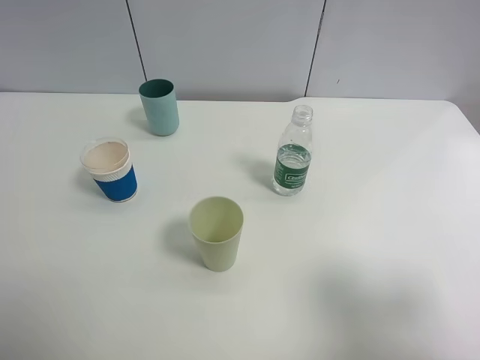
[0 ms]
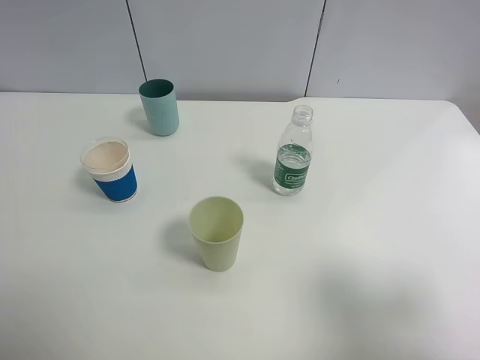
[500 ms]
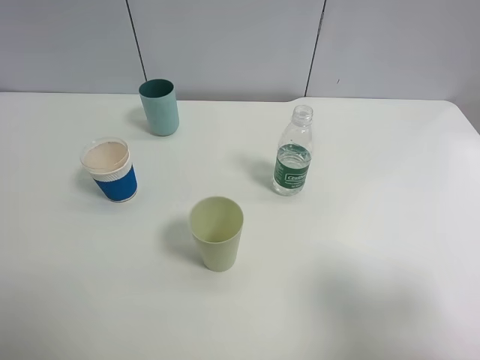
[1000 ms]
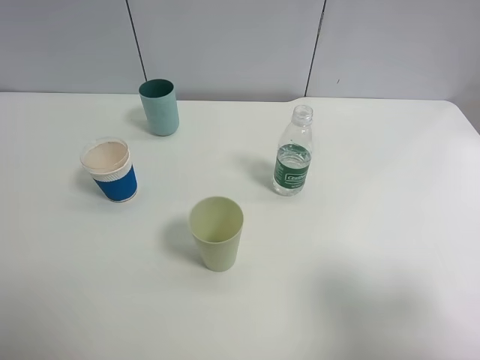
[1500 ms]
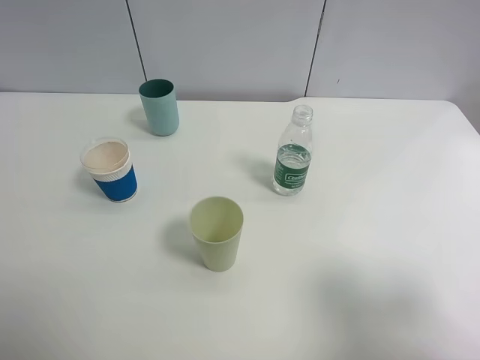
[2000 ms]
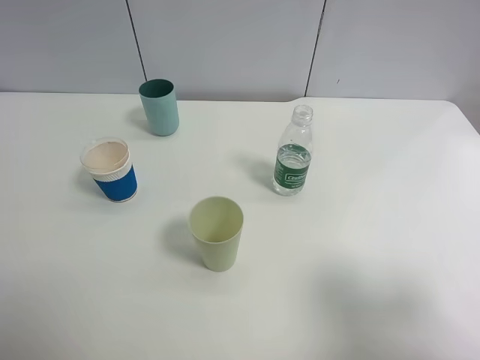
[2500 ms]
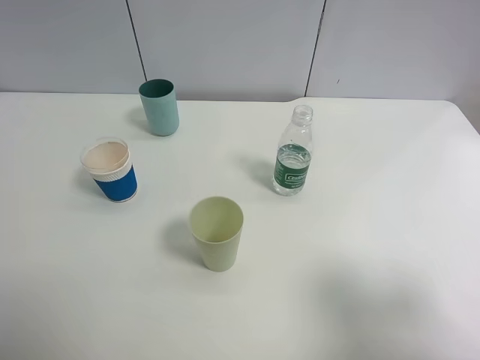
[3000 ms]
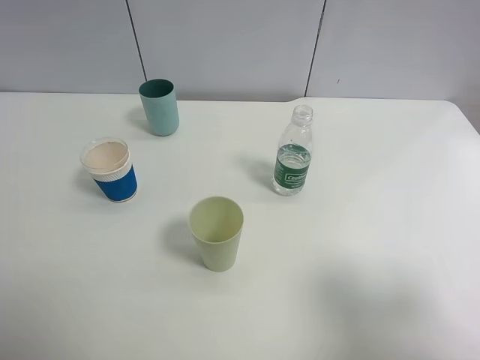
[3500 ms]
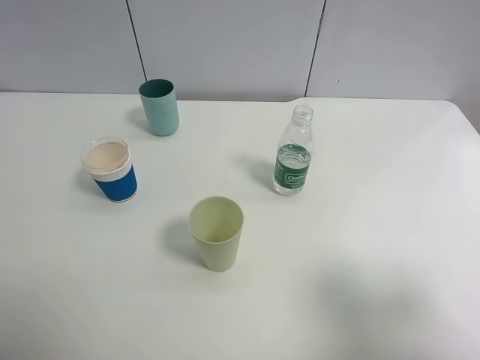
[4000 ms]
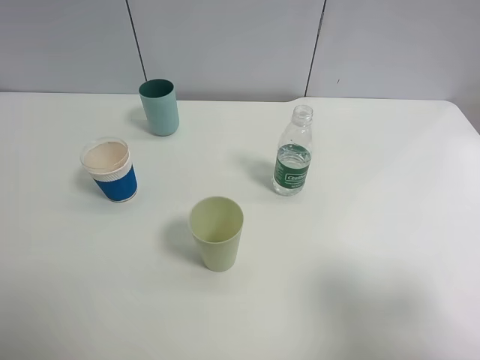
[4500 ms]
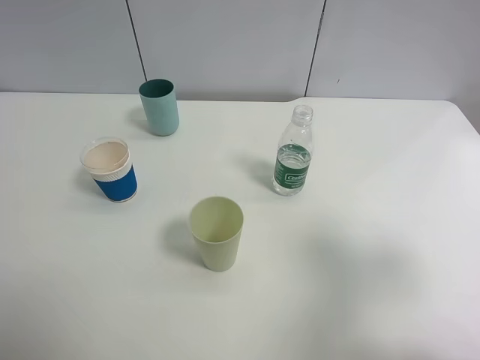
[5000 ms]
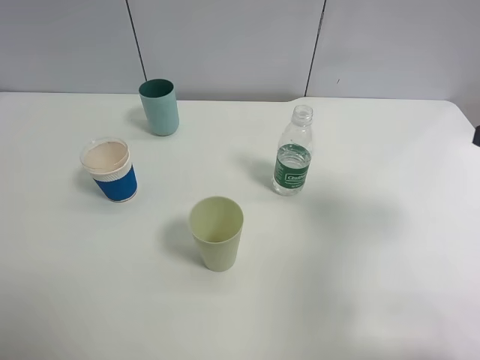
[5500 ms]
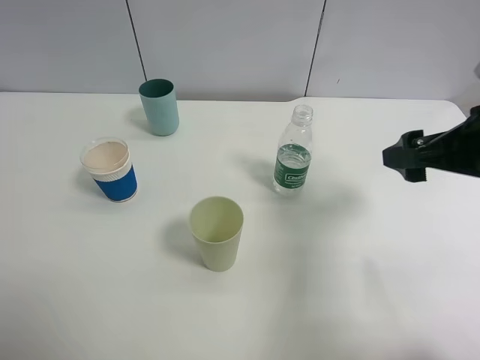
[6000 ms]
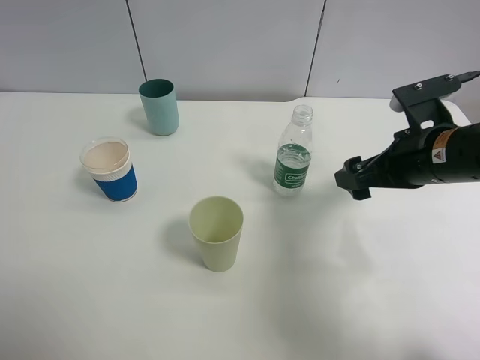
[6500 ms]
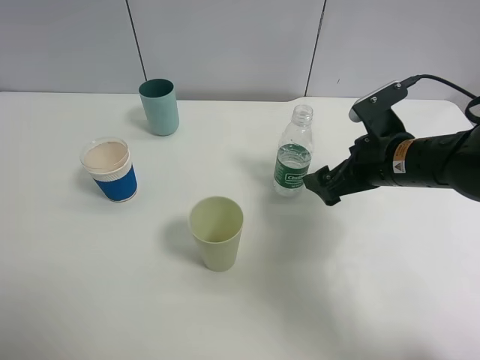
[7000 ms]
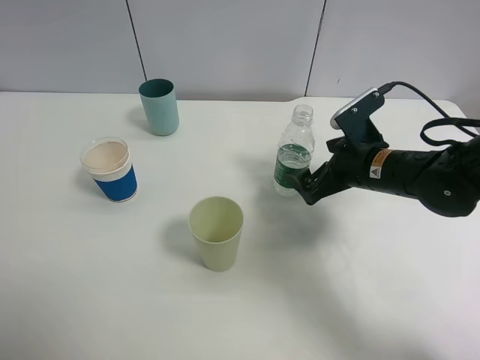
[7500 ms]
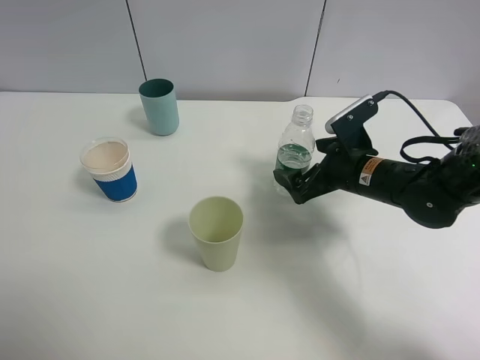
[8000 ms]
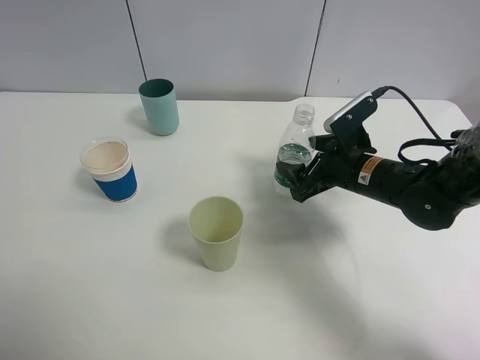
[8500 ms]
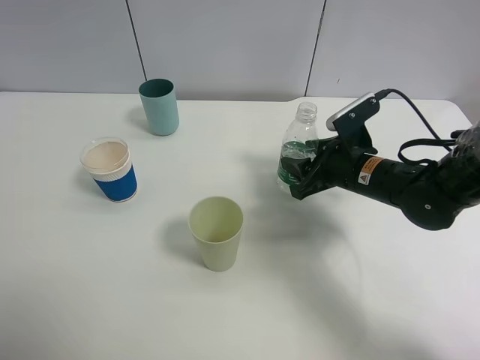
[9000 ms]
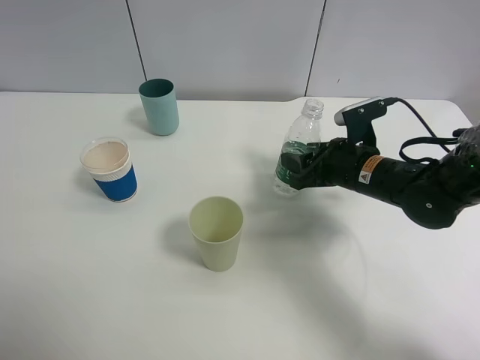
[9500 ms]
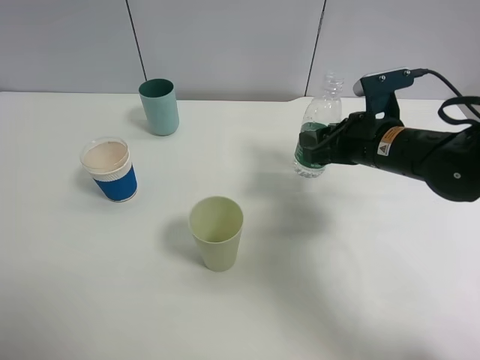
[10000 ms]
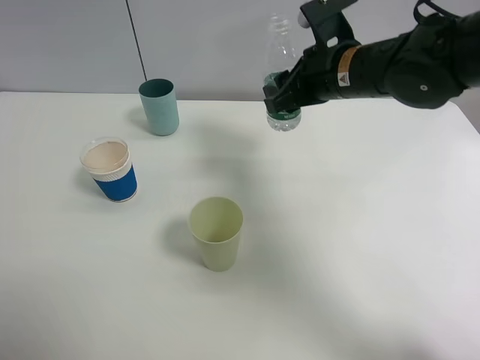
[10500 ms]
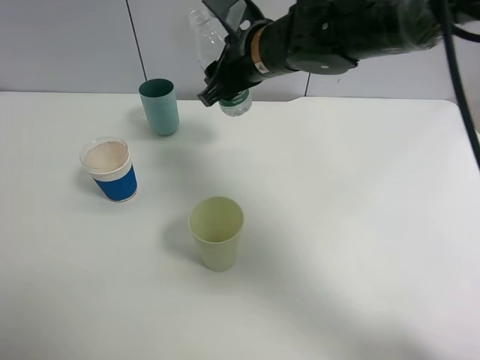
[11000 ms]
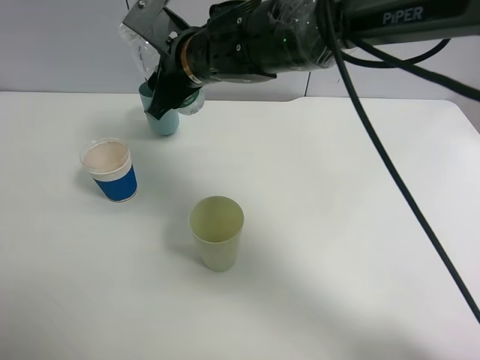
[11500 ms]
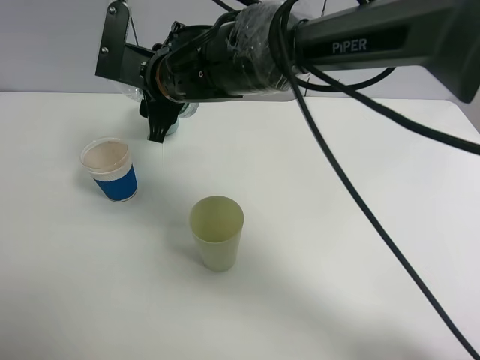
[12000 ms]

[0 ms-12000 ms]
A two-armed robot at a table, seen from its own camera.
Task of the whole recording: use a clamp to hold the bottle of the drink, pour the beverage into a random cup, then clamp the cup containing the drink and pour the drink into another random cup.
Step, 0 ms to 10000 ms: Pick up the water bottle with right gripper.
0 ms to 4000 ms: The two grippers keep their place.
4000 ms to 6000 ms: The right gripper goes about 20 cm forward.
6000 ms to 8000 ms: The right gripper moves downward, forward and to the left, roughly 20 cm.
8000 ms to 10000 ms: The right gripper travels upward by some 5 cm, and closes its fingers.
10000 ms to 12000 ms: The right gripper is displaced to the left by about 25 cm.

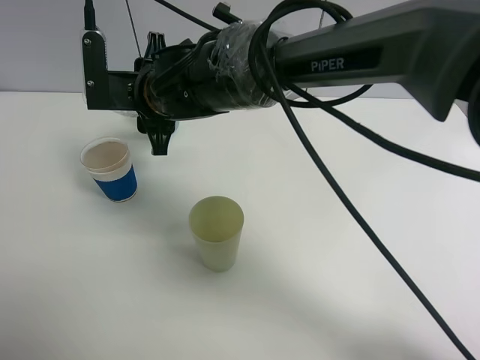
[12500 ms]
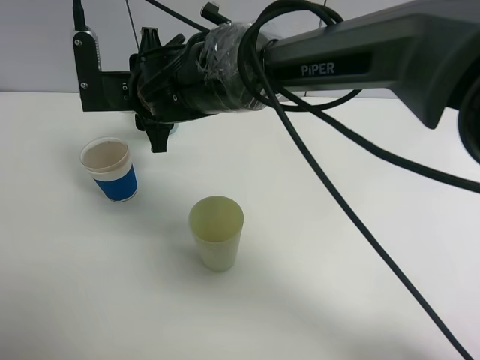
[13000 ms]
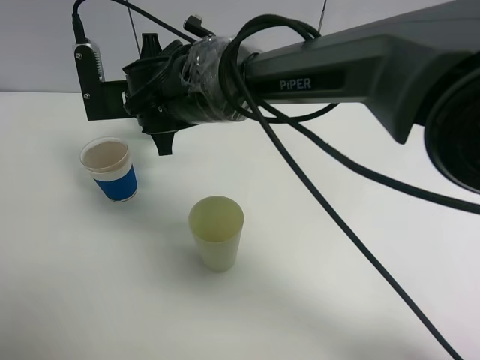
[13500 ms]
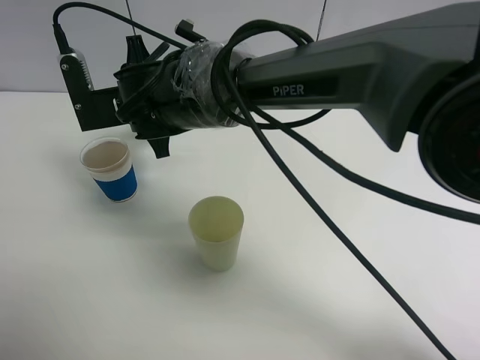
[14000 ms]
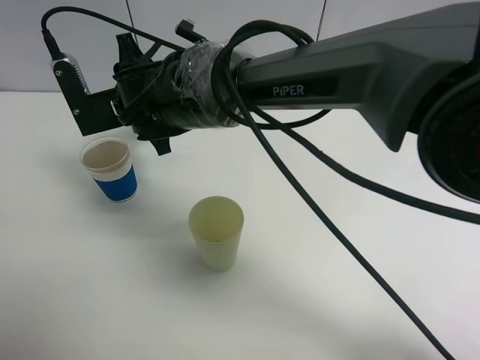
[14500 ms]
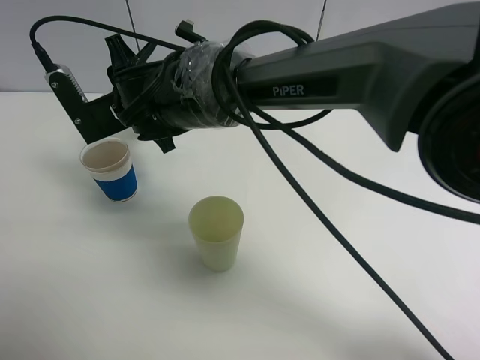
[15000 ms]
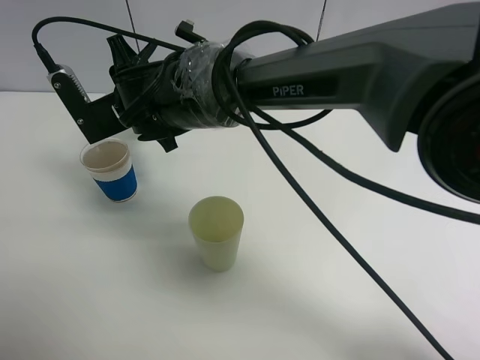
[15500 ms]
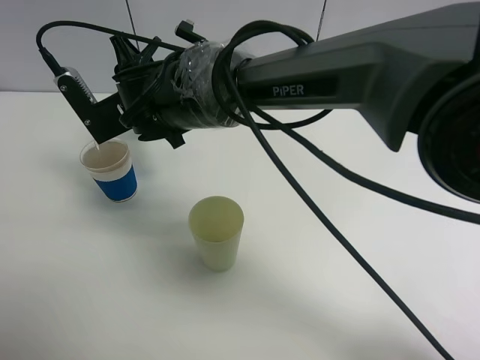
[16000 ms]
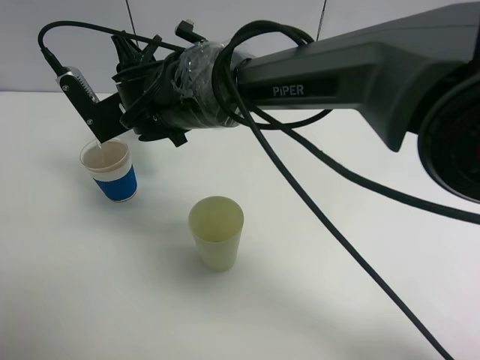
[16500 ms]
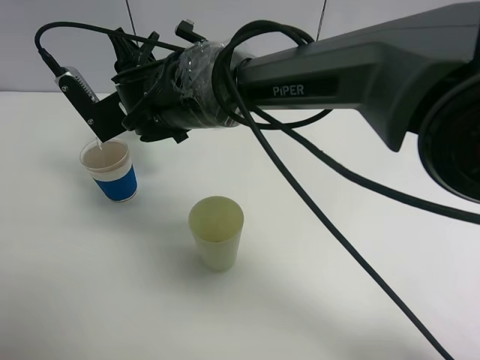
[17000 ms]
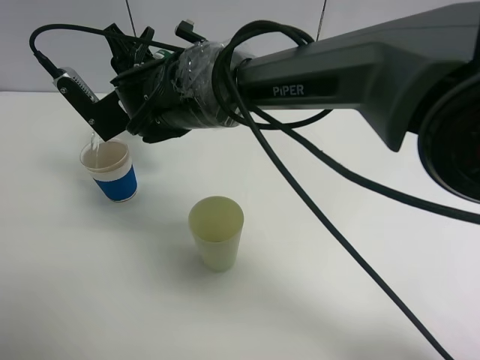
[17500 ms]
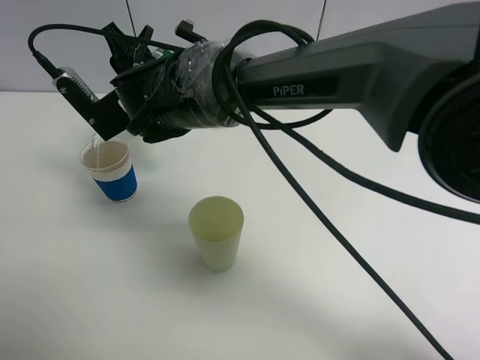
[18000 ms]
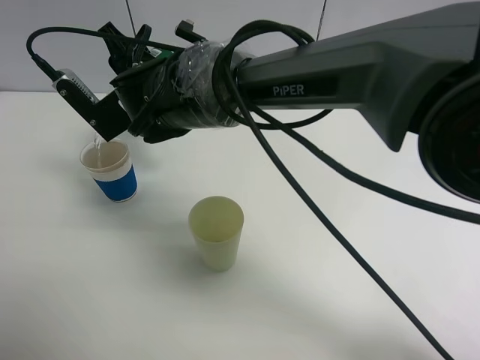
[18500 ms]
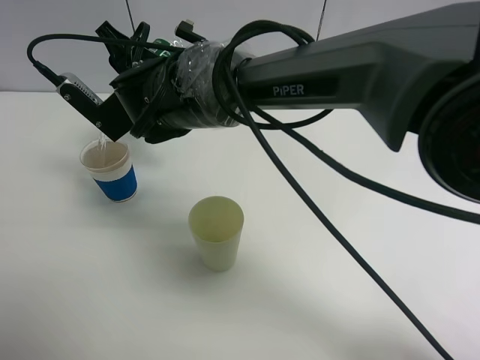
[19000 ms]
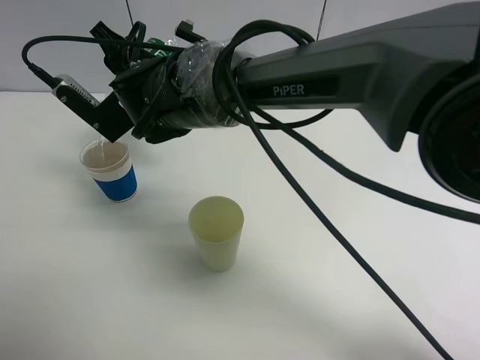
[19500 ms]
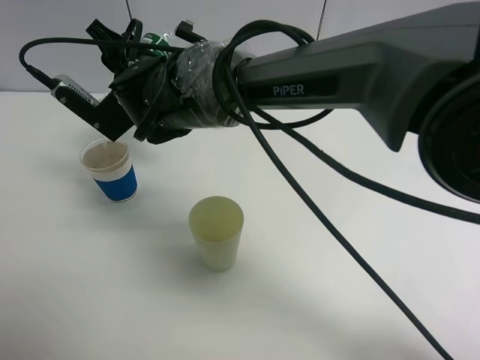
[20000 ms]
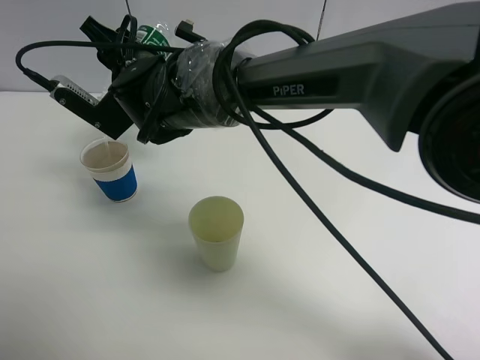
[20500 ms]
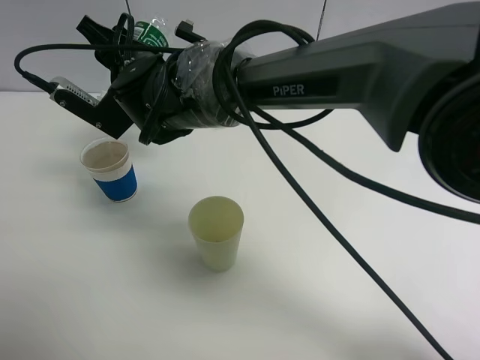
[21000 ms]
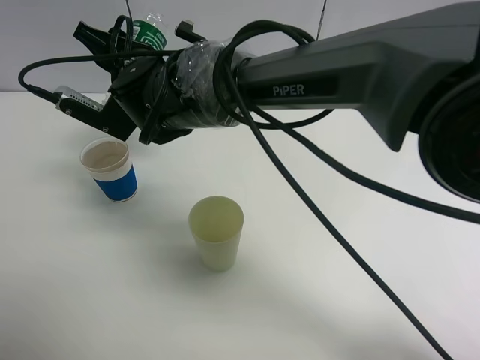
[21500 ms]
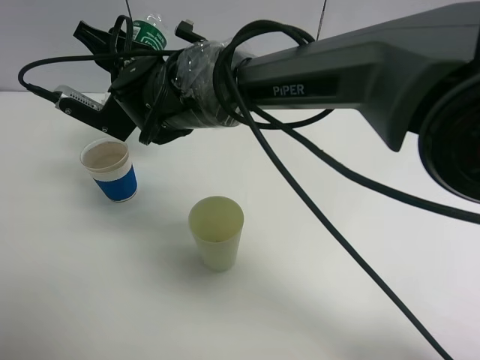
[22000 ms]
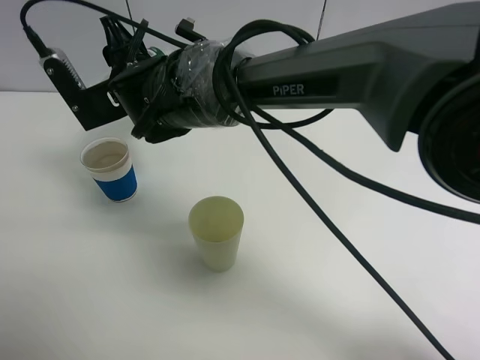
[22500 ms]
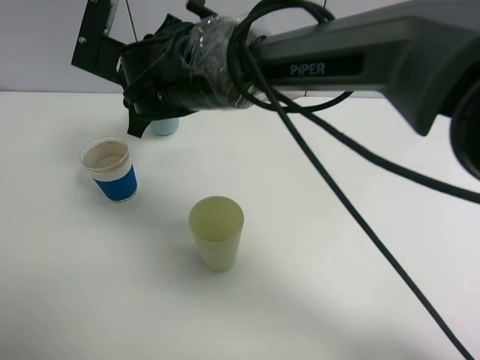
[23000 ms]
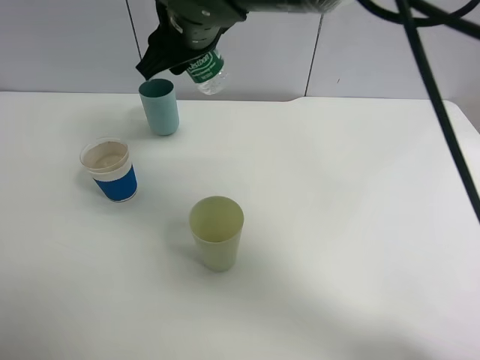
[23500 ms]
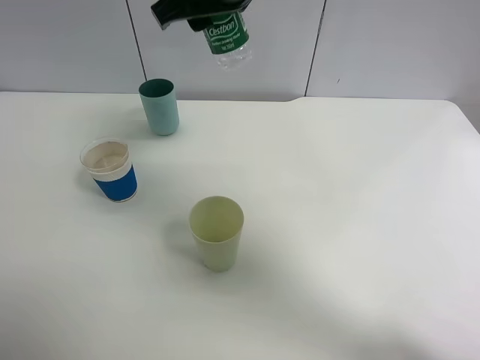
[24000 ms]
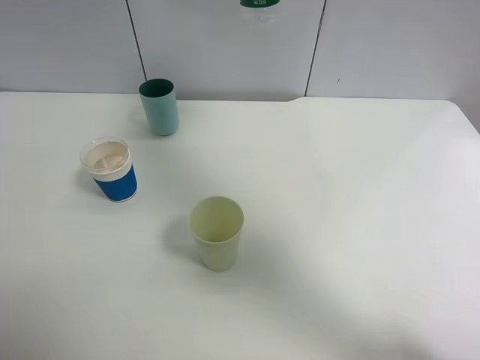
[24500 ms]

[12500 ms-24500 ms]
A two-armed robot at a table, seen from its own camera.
Task of the whole recording: use a clamp to hold the bottle of the drink, pour the beverage into a random cup, then clamp the cup containing the drink and pour the drink into another random cup.
Step, 12500 ms to 22500 ms: Pour water into the paper cup with right gripper.
14500 ms to 16500 ms: The grippers move only a little.
16500 ms to 18500 ms: The grippers make only small movements.
18500 ms to 20500 ms: The grippers make only small movements.
22500 ms to 24500 ms: The right gripper is displaced to the right and upward by about 25 cm.

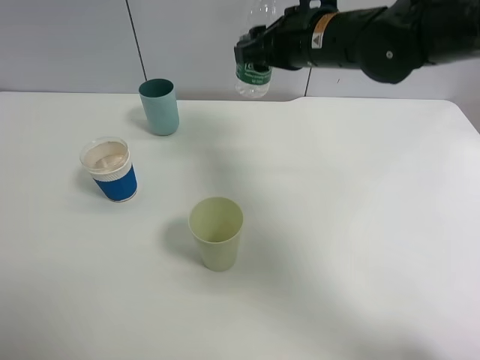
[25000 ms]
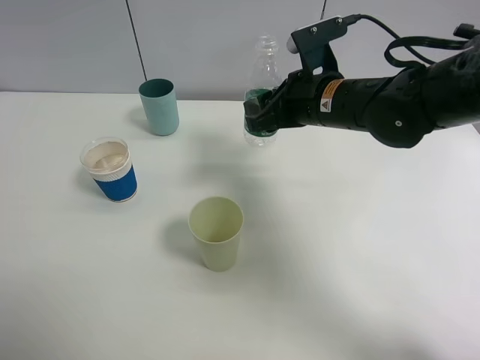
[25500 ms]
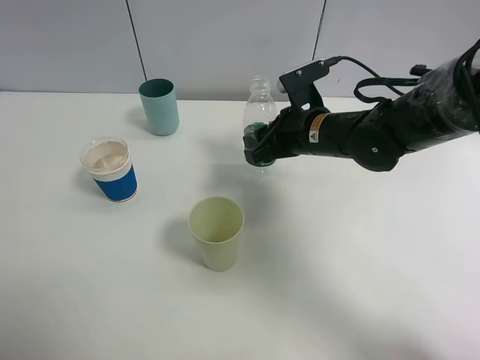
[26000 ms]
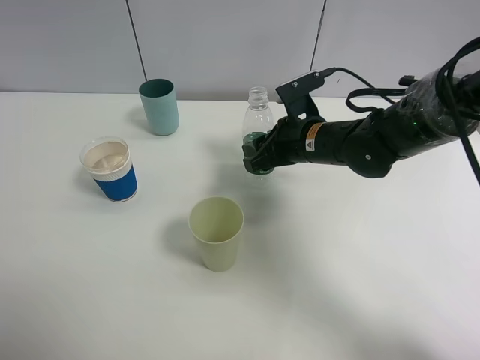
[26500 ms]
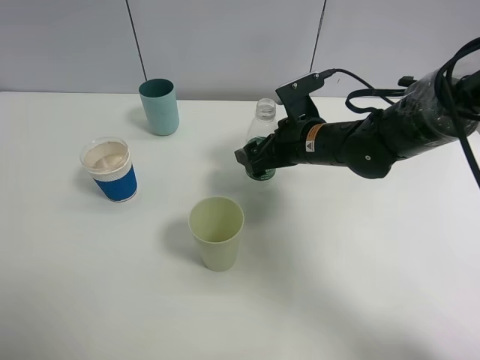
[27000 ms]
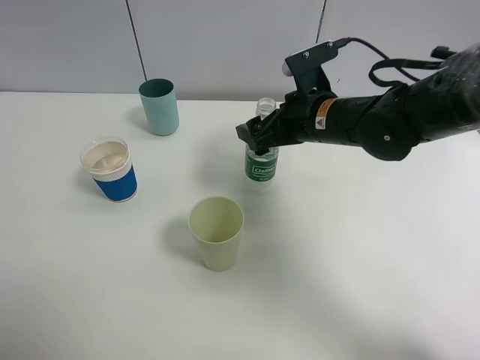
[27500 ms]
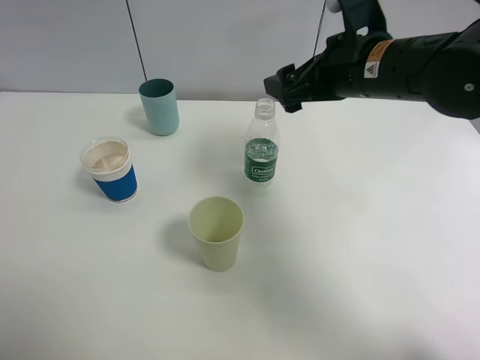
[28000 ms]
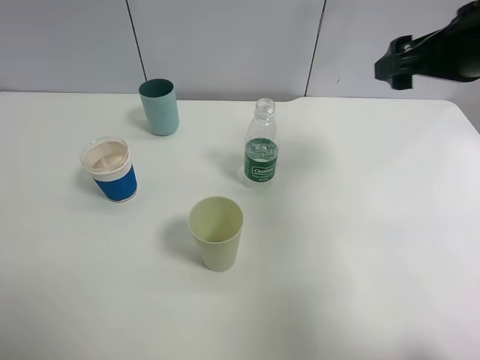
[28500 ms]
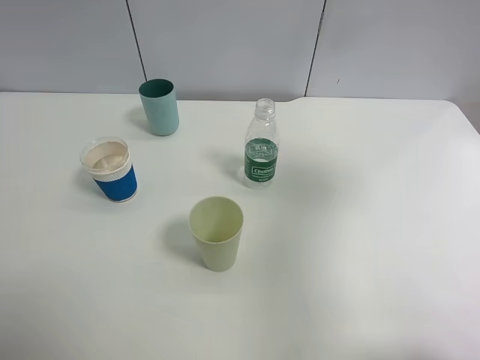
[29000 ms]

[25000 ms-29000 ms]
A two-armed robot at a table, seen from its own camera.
Task of the whole recording: use a clamp to hold the bottle of the drink, pour the beverage into a random cup, then clamp the cup containing the drink and pour the drink into another random cup.
Step, 25000 ms to 27000 ms: Place the water bottle on the table with right gripper.
25000 ms to 27000 ms: The right gripper travels downward by about 10 cm, and opens its fingers.
27000 ms to 29000 ms: The right gripper shifts some 35 cm upward, to the right and backward.
